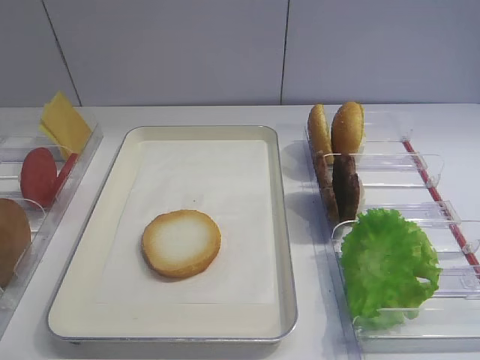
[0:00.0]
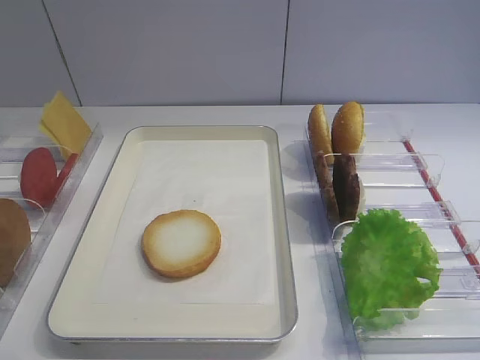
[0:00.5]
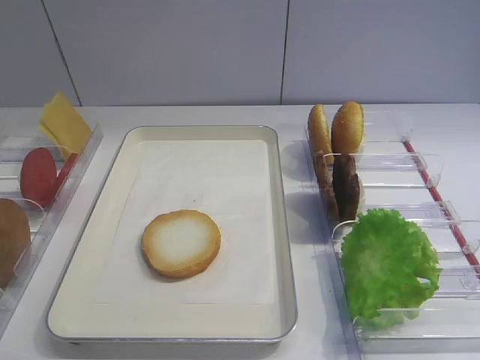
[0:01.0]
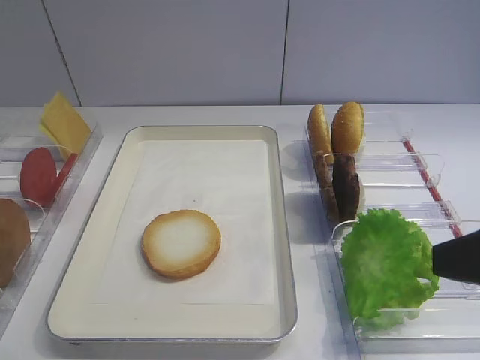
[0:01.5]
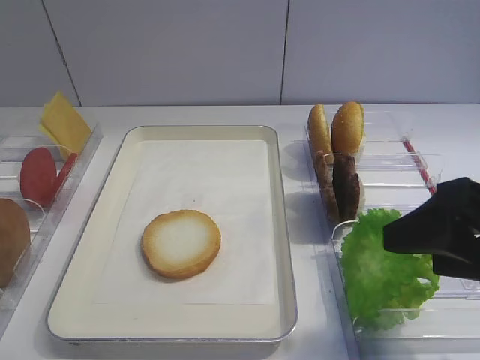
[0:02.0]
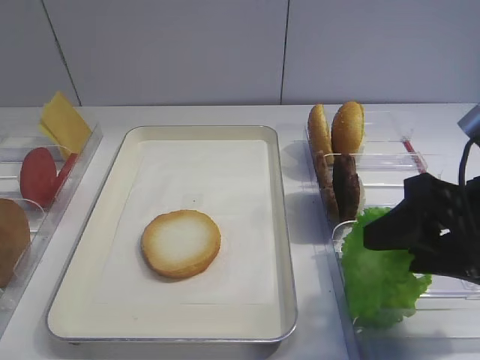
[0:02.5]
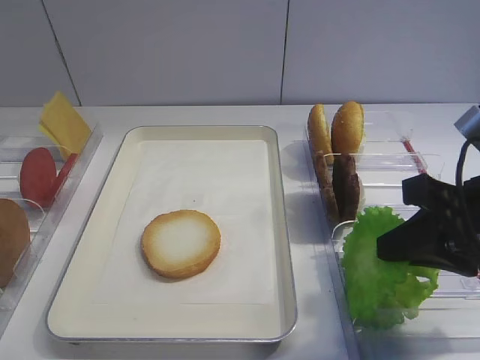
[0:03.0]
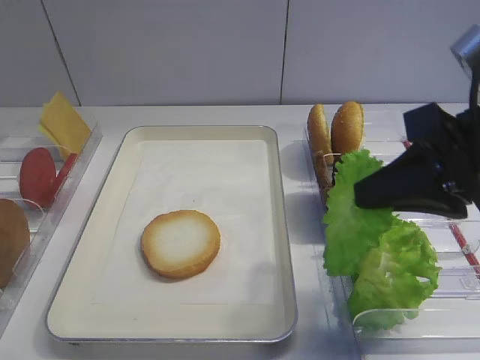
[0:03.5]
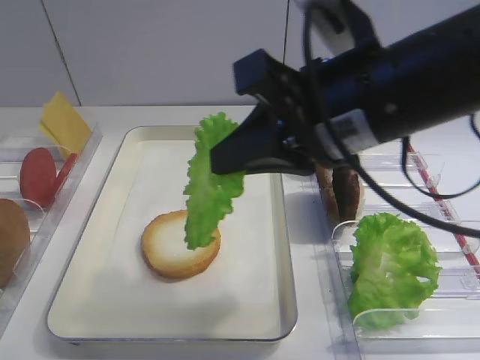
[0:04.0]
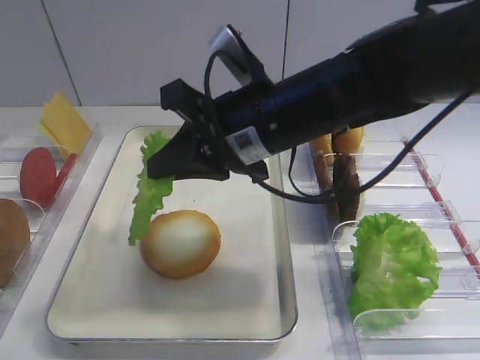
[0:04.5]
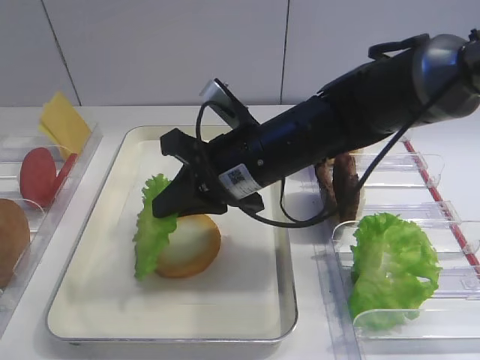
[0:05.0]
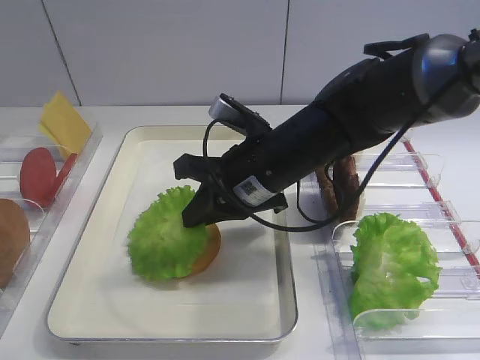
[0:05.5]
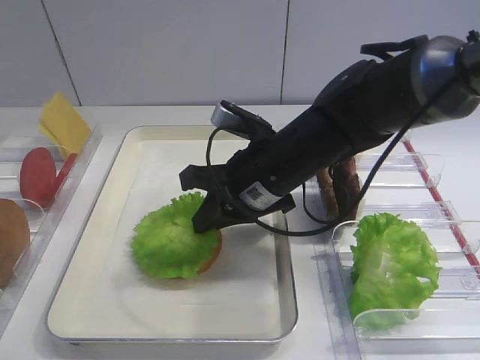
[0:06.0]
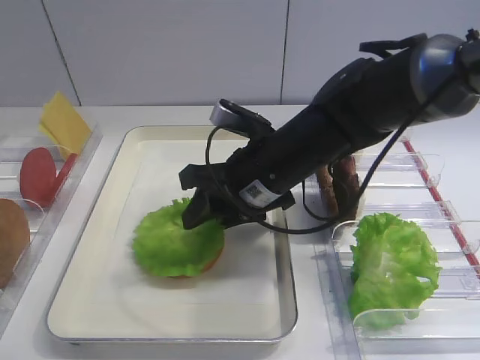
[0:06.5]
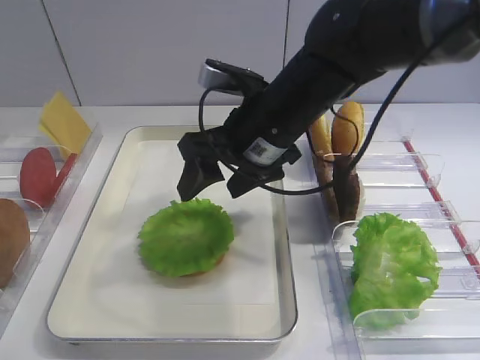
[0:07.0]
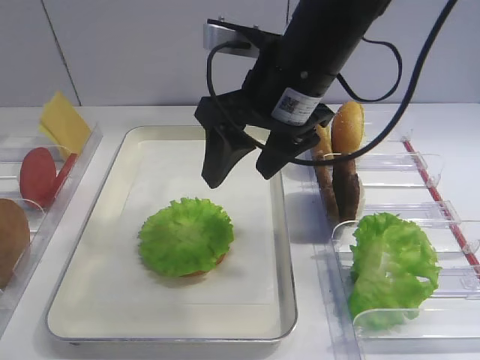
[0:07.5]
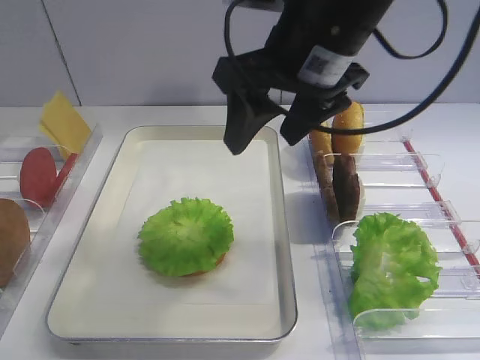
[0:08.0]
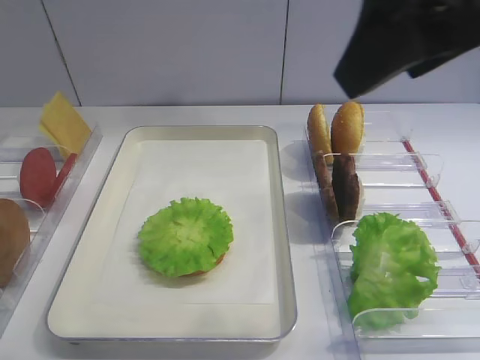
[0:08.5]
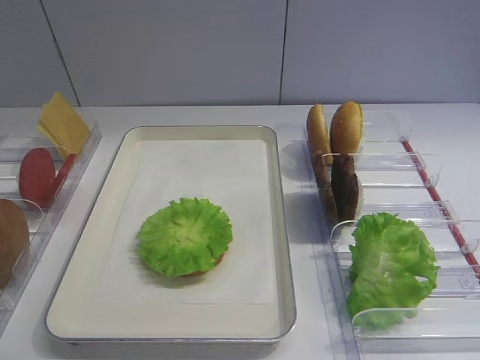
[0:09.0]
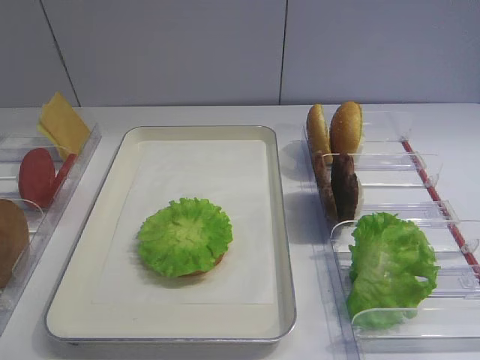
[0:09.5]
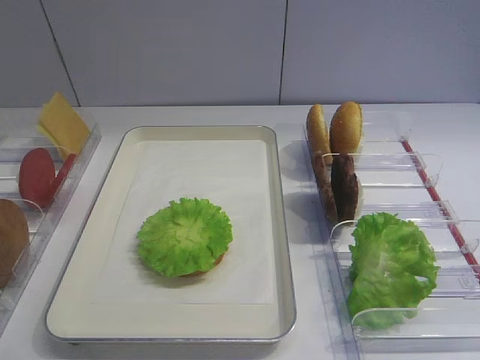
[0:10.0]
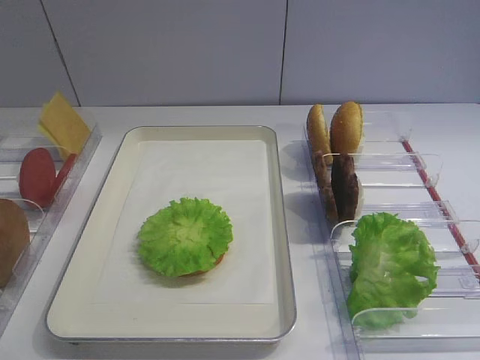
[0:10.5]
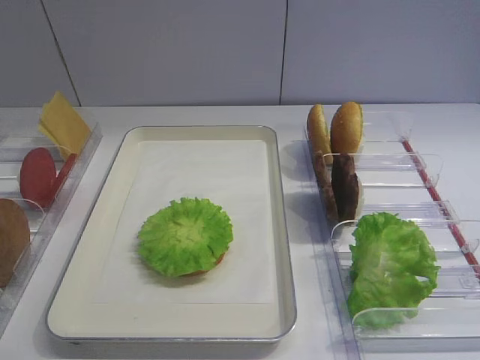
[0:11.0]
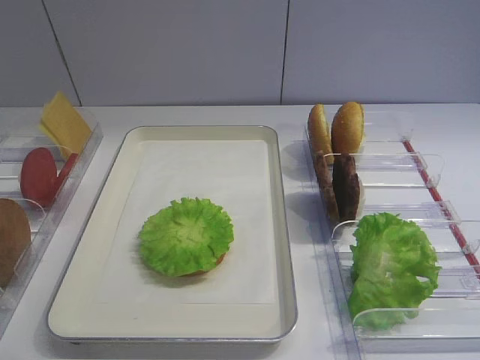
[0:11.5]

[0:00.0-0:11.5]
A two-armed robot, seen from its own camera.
Step, 0:00.0 to 0:03.0: Pick up the lettuce leaf with the right gripper.
Step, 0:04.0 to 0:06.5: Place the lettuce leaf on the bread slice with the right gripper.
0:02.0 to 0:04.0: The right gripper moves to the left, forward and upward, some 15 cm, and closes.
0:04.0 to 0:06.0: The right gripper travels downward, forward and to the left by roughly 15 cm.
0:06.0 to 0:07.5: The right gripper travels upward by about 10 cm, and opens its fingers.
0:07.5 to 0:09.5: The right gripper goes about 35 cm backward and to the right.
0:09.5 to 0:11.5: The right gripper shifts by roughly 5 cm.

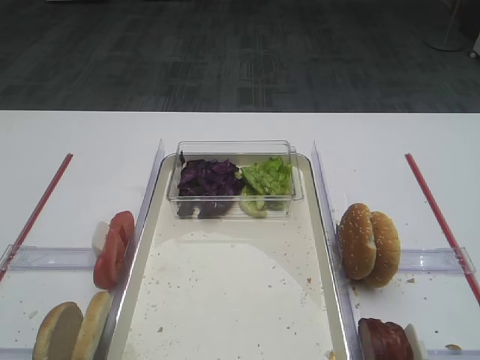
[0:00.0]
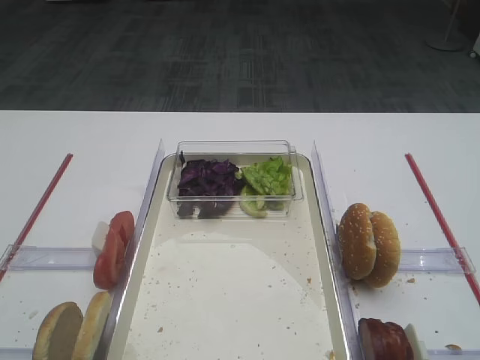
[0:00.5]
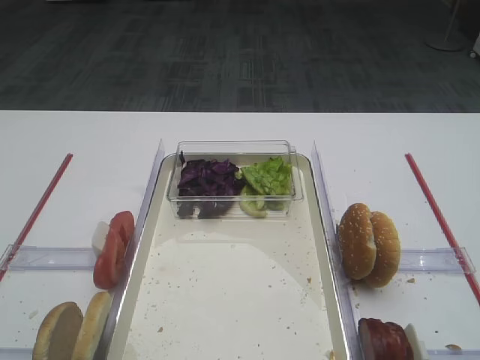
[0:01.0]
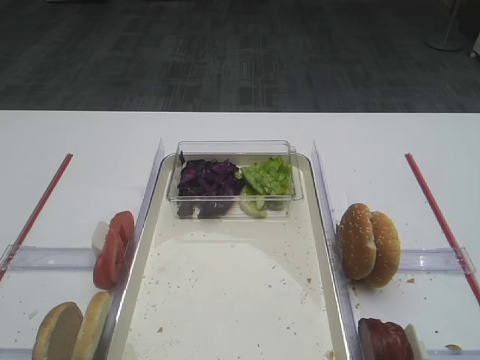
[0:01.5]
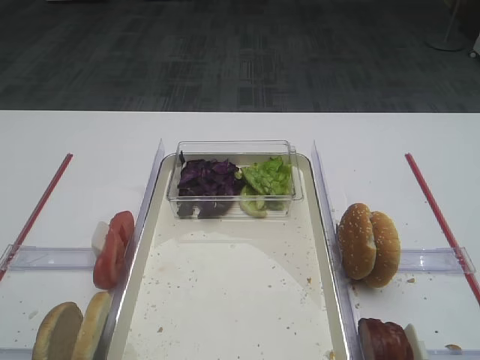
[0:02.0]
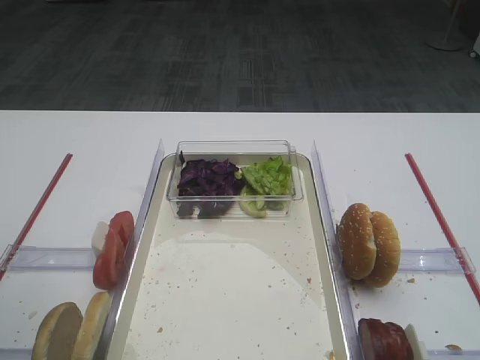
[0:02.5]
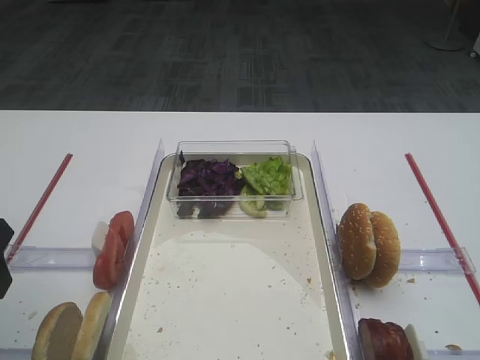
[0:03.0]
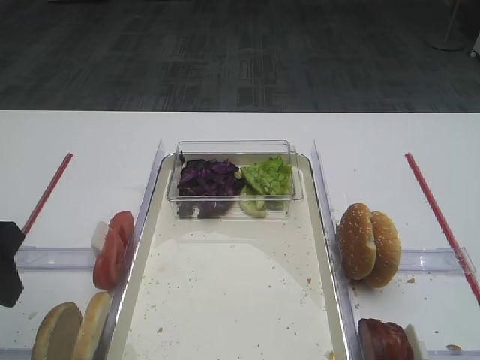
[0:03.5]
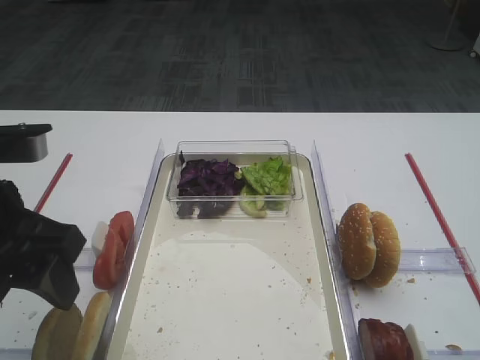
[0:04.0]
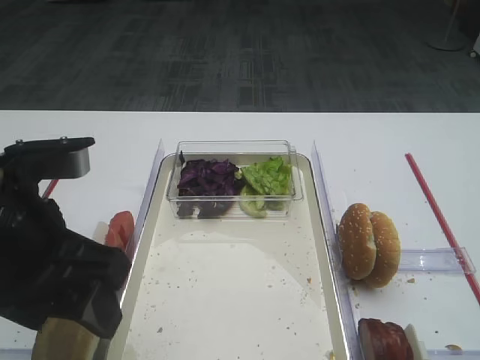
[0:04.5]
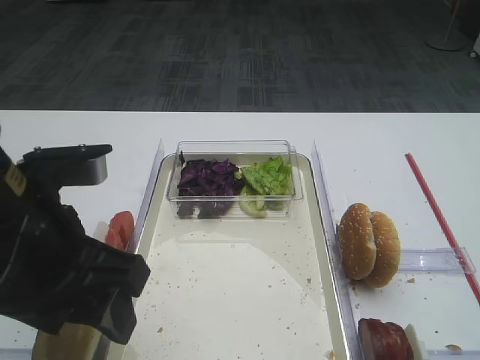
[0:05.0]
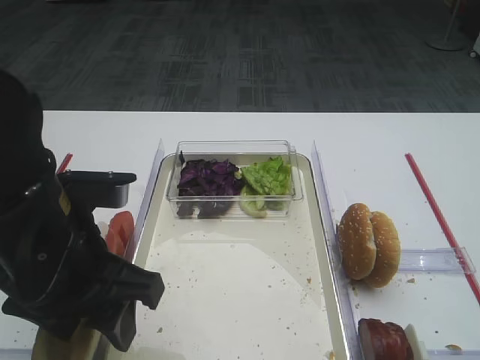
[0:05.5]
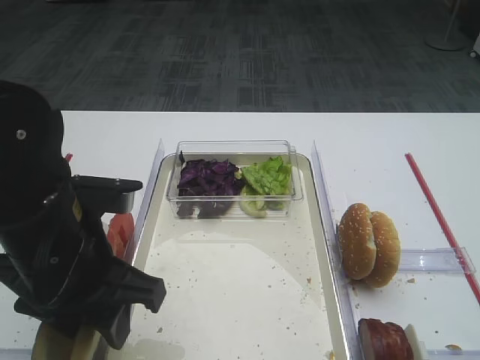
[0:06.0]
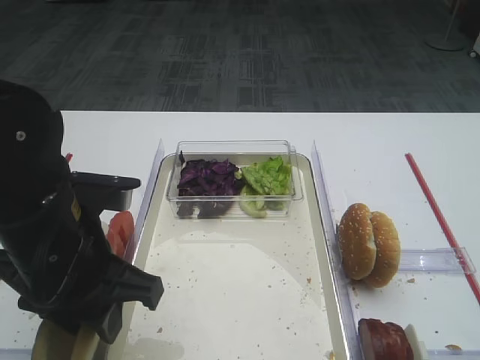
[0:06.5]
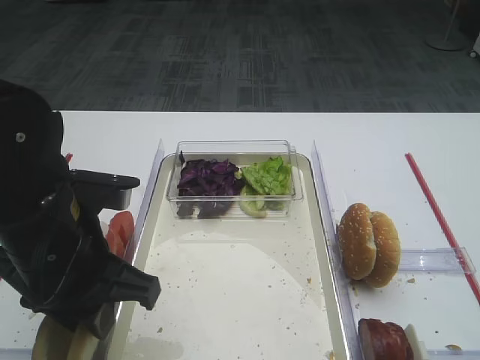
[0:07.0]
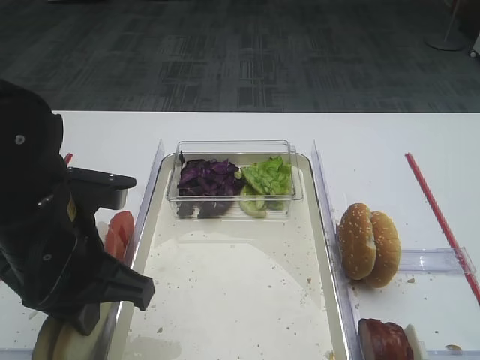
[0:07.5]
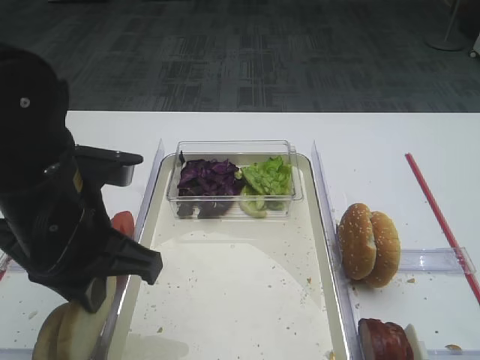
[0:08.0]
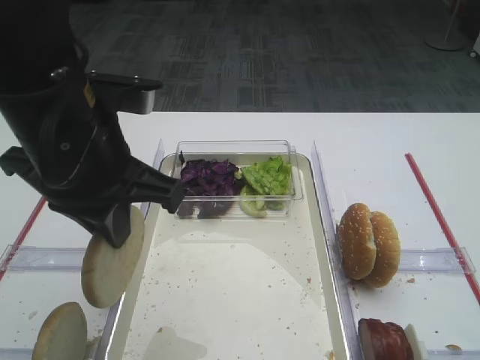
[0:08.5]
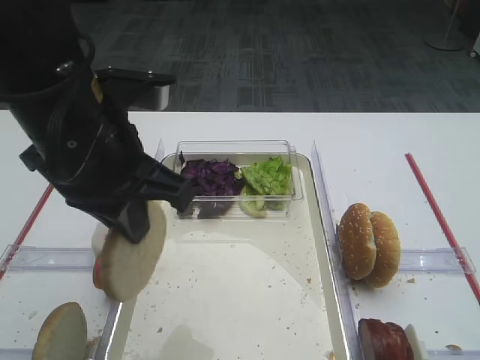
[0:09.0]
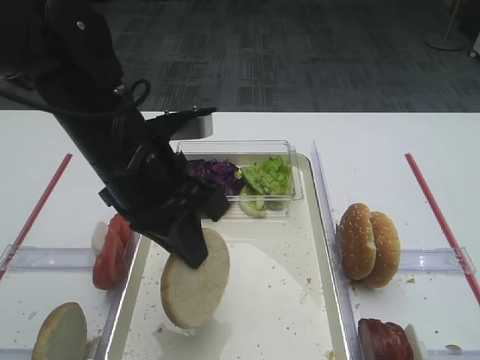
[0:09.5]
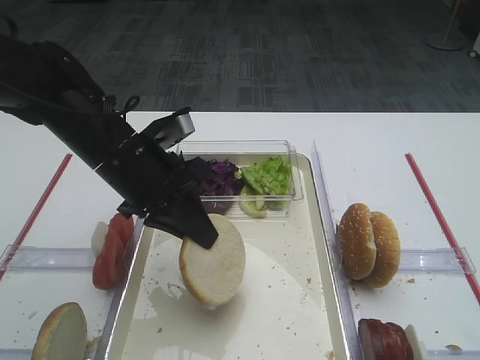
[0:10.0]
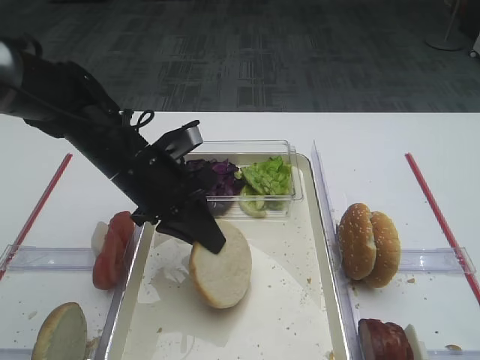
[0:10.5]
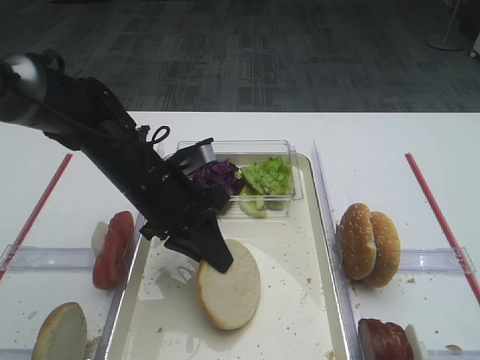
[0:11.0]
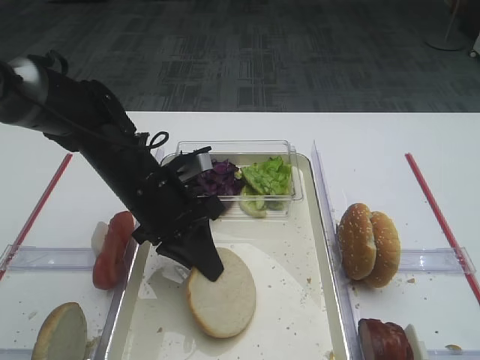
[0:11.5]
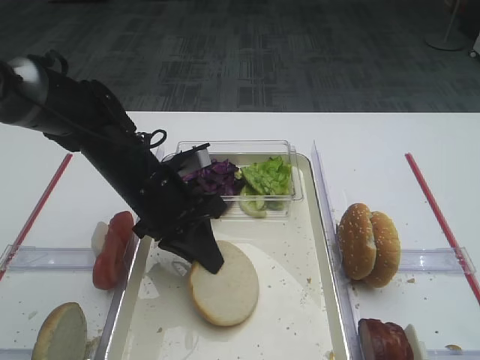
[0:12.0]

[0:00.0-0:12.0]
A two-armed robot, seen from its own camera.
Step, 0:00.0 to 0:08.0: Pick up the bread slice with the left gripper.
0:02.0 to 0:04.0: The left gripper is displaced forward and to the right by about 10 cm.
0:04.0 to 0:06.0: The left gripper travels to the right and downward by some 10 cm.
0:06.0 to 0:08.0: The left gripper closes its fingers.
0:08.0 to 0:10.0: The left gripper goes approximately 10 cm forward.
0:10.0 to 0:12.0: The left gripper moves about 5 cm.

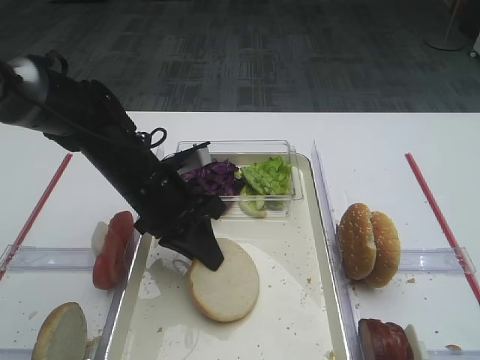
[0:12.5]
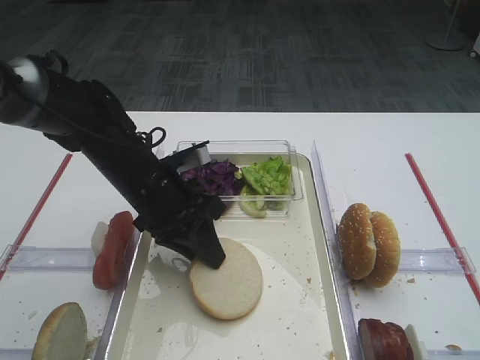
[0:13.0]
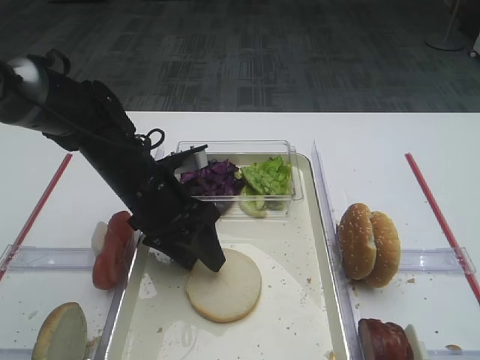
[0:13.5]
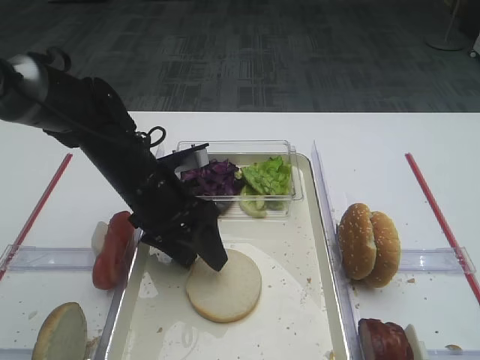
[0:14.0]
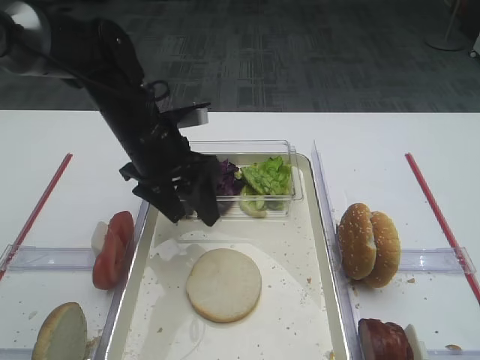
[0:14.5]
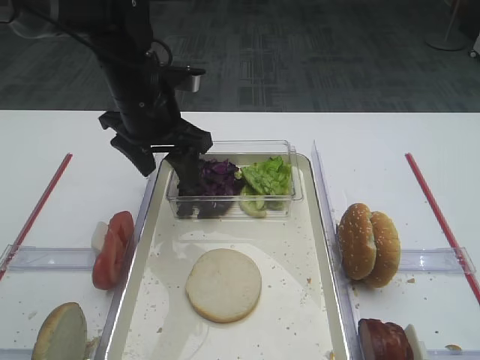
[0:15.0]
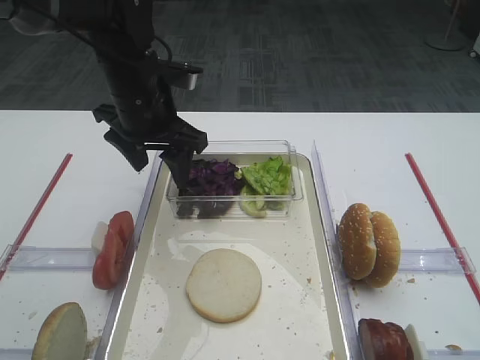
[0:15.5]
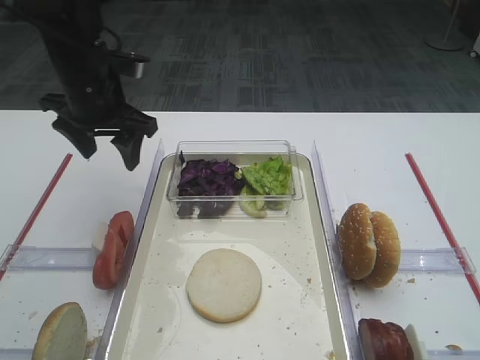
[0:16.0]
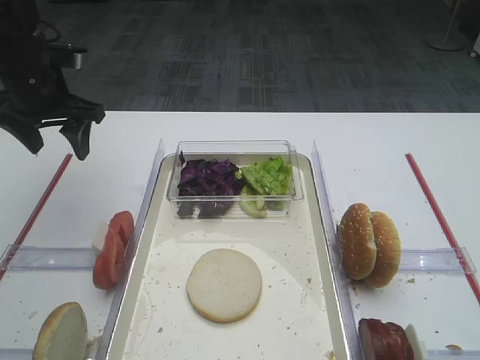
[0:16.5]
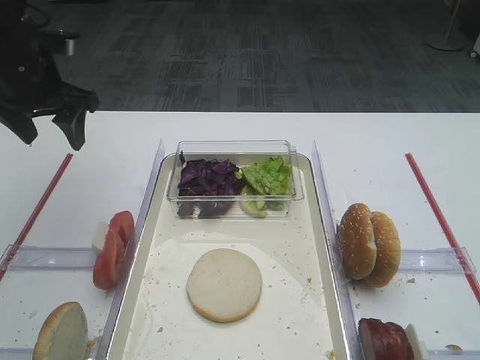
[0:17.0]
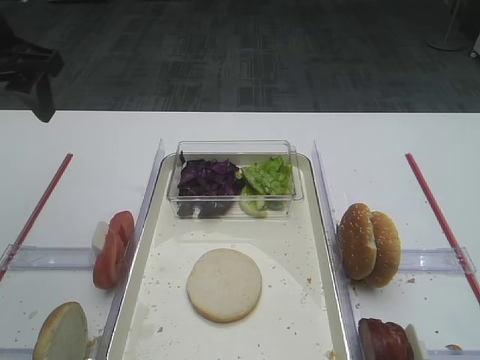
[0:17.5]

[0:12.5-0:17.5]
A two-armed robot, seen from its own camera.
0:12.5 to 0:15.0: The left gripper heads upward and forward, covering some 10 cm, and opens.
0:15.0 to 0:17.5: The left gripper heads to the left and upward, covering approximately 20 cm.
